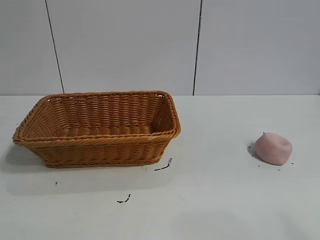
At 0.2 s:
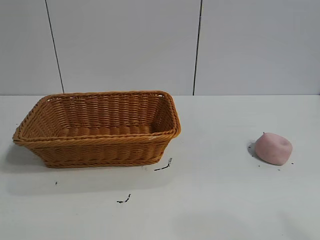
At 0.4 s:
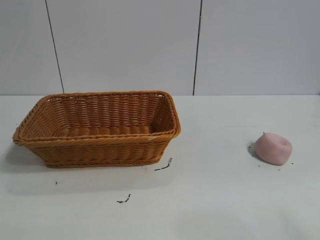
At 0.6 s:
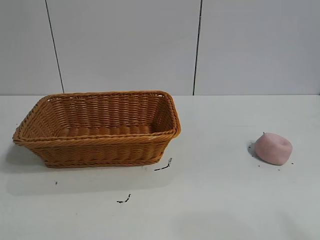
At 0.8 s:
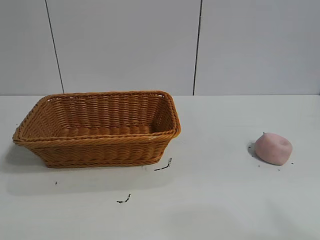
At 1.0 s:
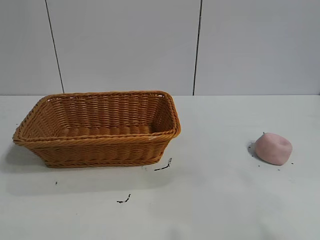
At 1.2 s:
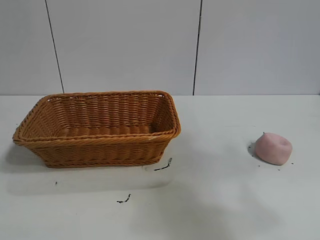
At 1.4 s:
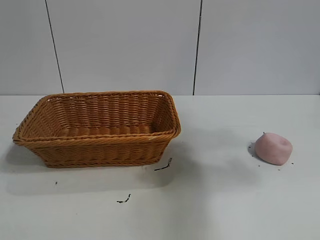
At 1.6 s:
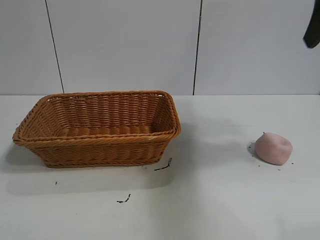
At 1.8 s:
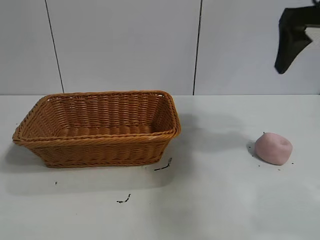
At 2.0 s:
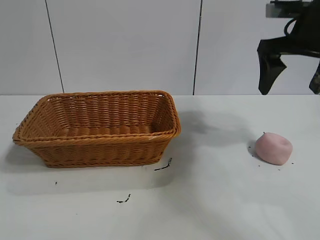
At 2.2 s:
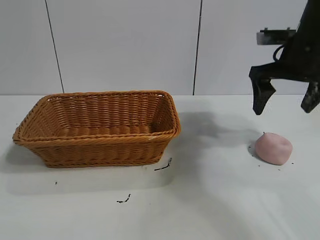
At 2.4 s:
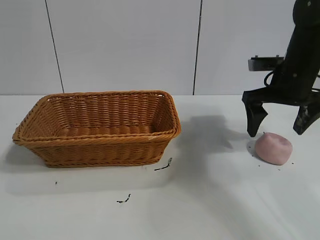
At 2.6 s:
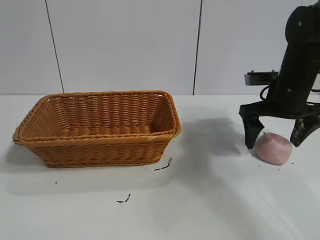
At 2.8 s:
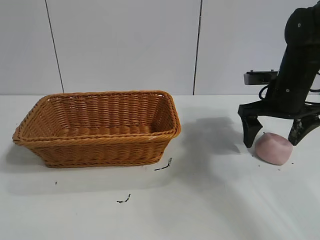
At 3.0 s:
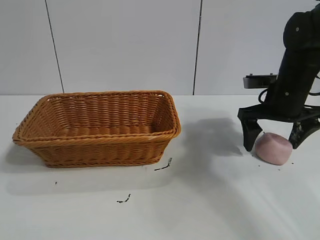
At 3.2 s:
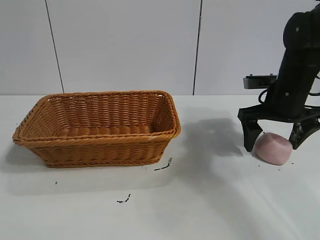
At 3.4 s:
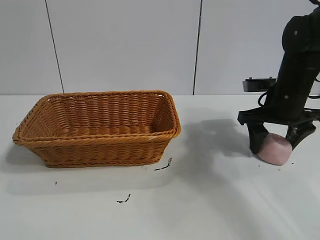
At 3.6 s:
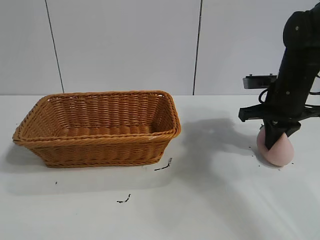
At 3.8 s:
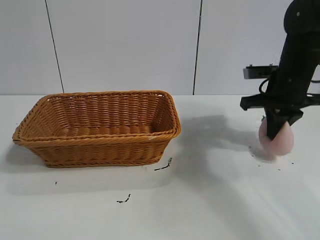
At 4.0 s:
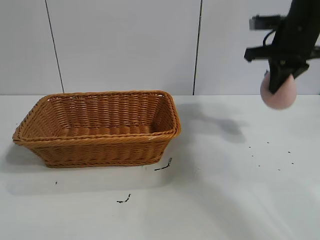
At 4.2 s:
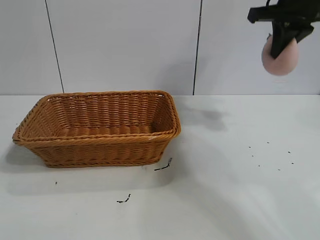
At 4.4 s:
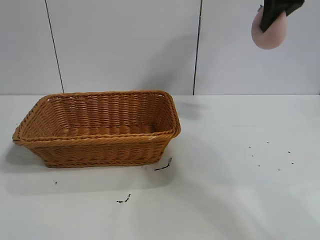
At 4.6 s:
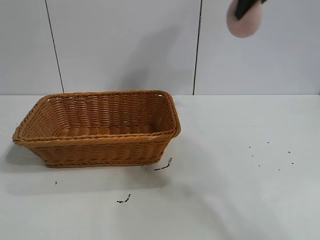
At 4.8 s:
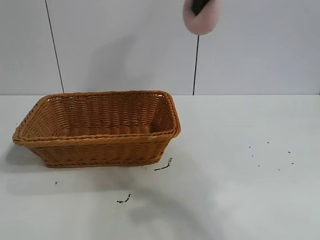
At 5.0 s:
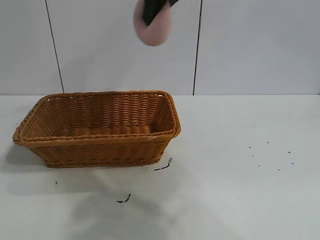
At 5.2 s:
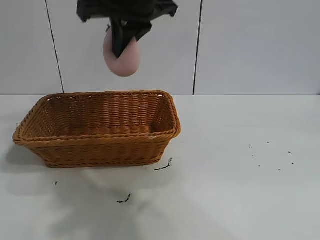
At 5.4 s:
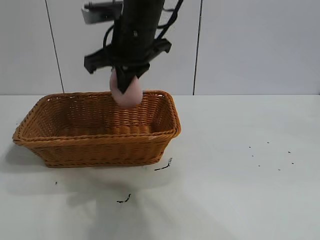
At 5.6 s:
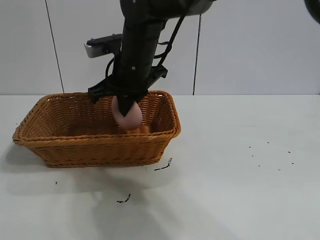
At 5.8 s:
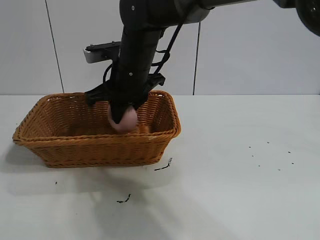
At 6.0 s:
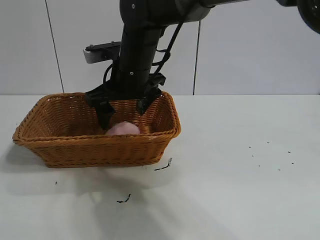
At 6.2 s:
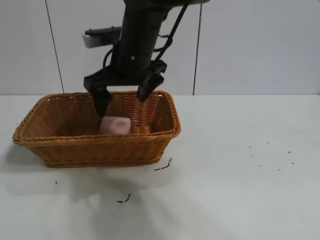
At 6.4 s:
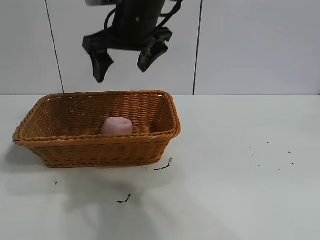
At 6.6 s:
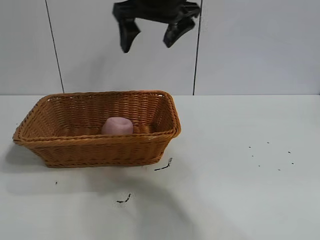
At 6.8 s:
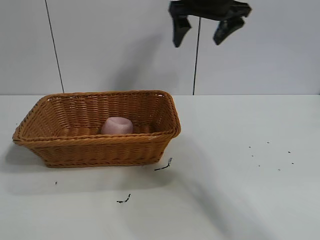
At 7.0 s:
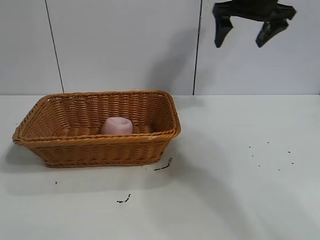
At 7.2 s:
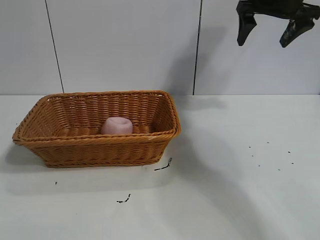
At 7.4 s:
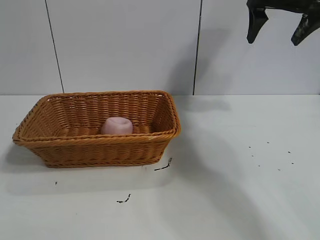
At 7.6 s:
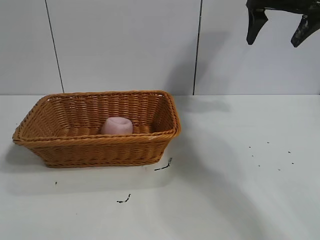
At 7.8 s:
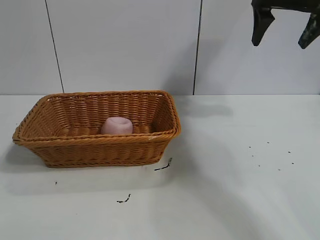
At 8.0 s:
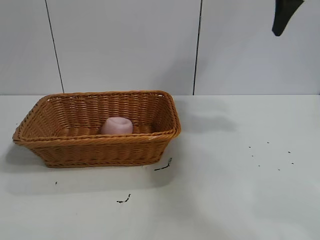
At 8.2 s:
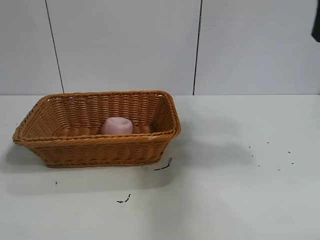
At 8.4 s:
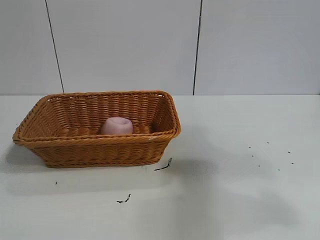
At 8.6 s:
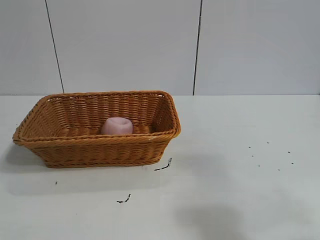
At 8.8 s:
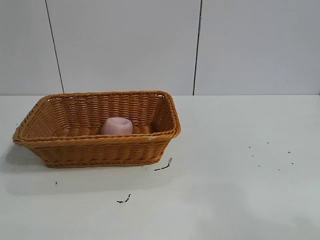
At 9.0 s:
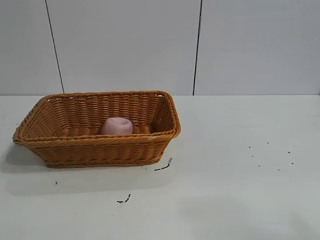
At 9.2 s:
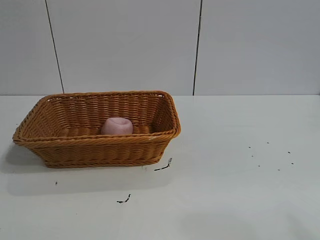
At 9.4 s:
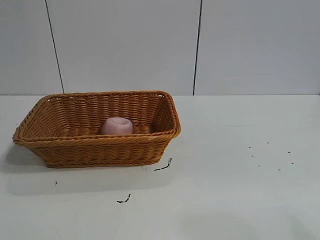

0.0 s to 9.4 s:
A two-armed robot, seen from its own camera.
Task of the whole recording: pick up the peach and put it into the basket.
Step, 0.8 to 3.4 s: Grasp the peach with right gripper.
Step, 3.8 to 6.0 s: Place the peach in the basket with right gripper.
